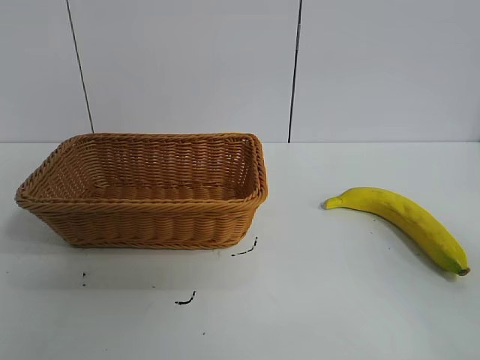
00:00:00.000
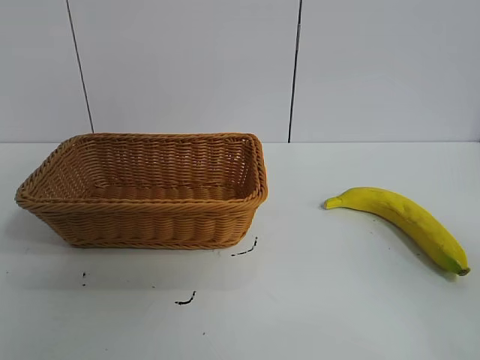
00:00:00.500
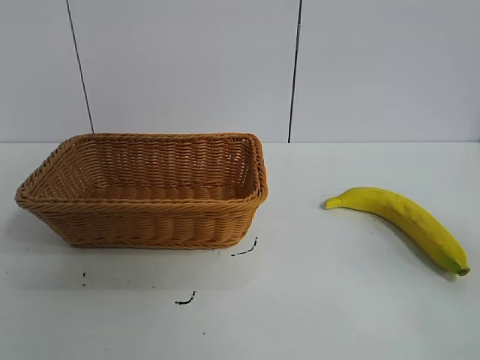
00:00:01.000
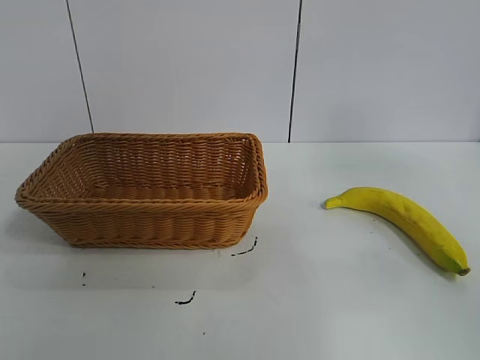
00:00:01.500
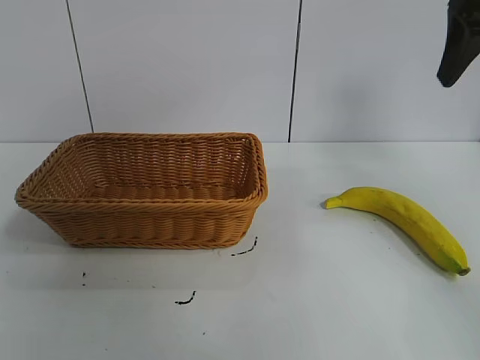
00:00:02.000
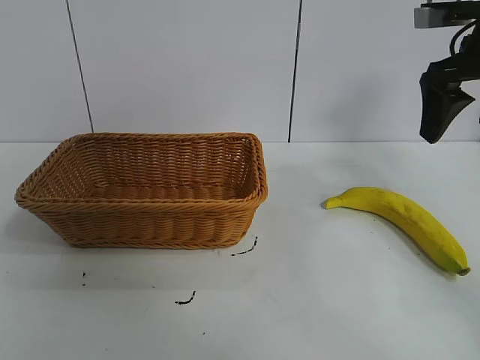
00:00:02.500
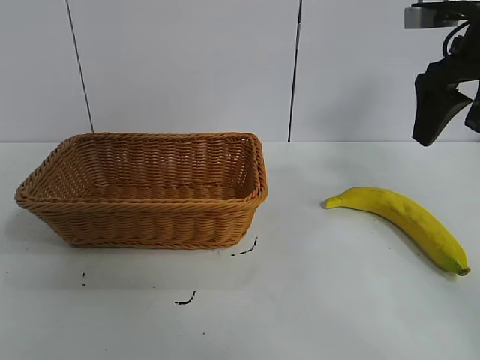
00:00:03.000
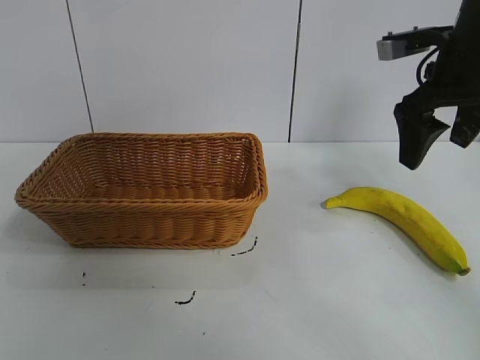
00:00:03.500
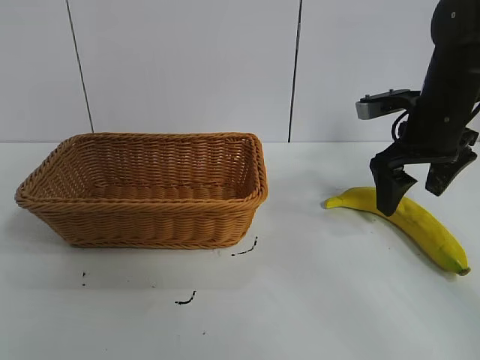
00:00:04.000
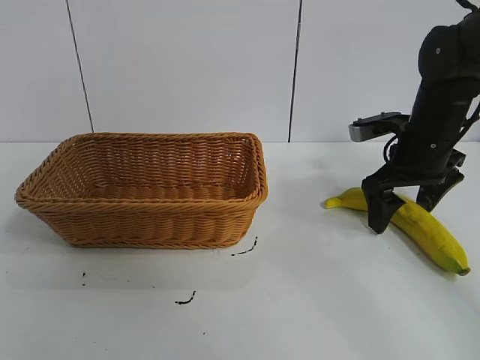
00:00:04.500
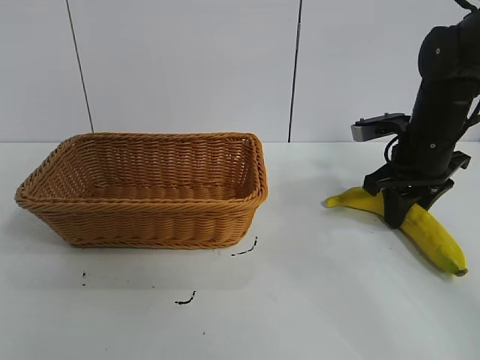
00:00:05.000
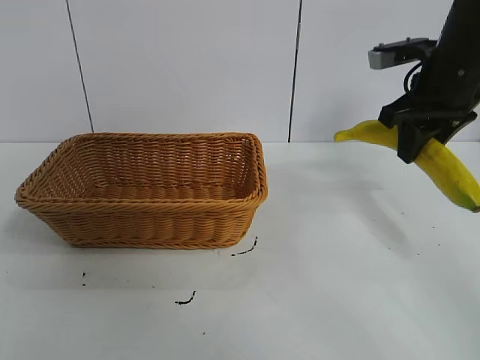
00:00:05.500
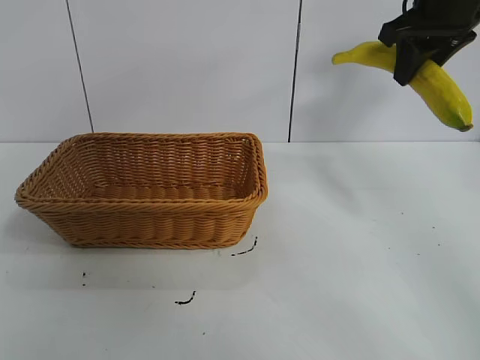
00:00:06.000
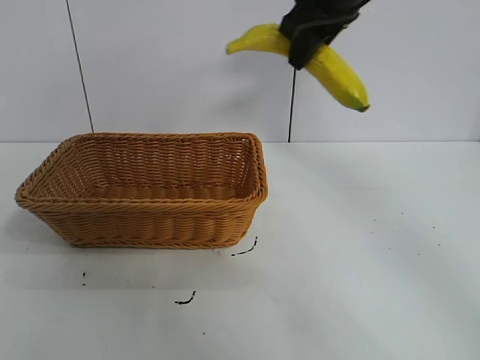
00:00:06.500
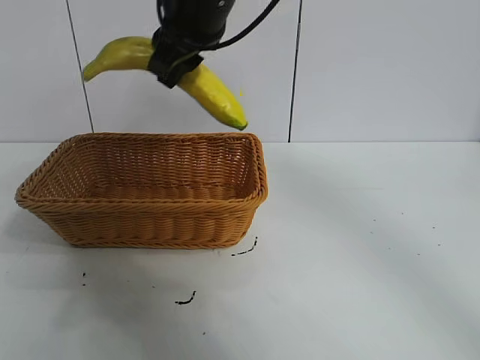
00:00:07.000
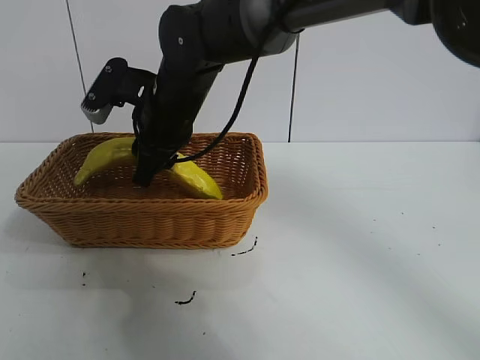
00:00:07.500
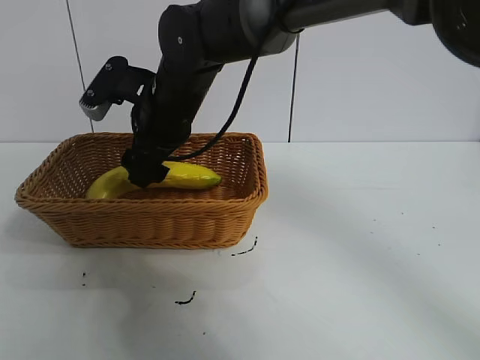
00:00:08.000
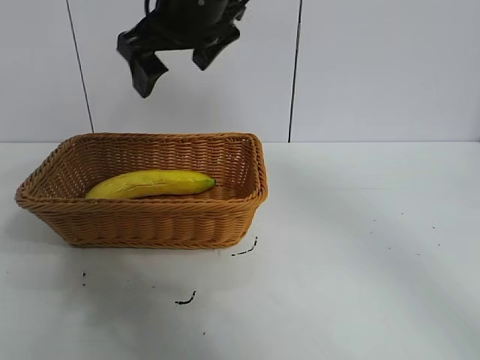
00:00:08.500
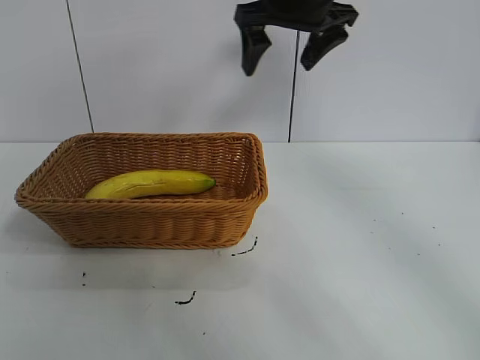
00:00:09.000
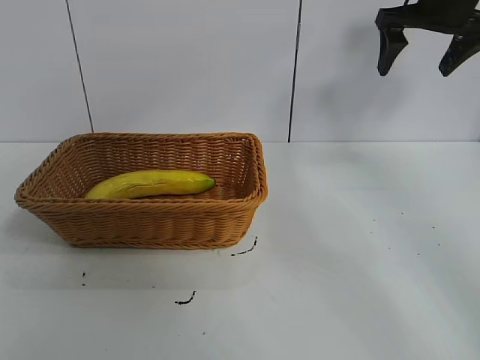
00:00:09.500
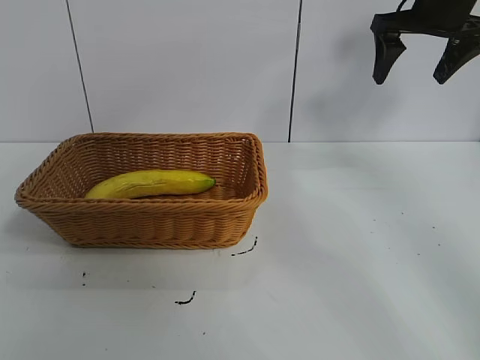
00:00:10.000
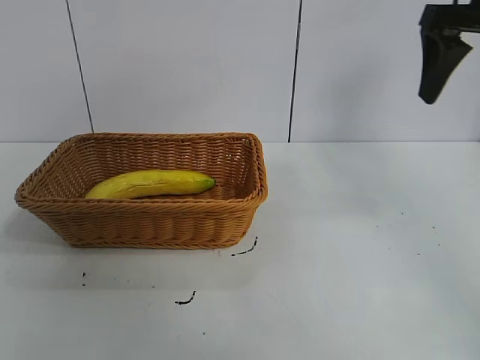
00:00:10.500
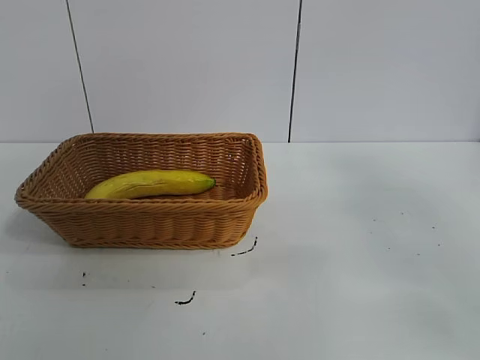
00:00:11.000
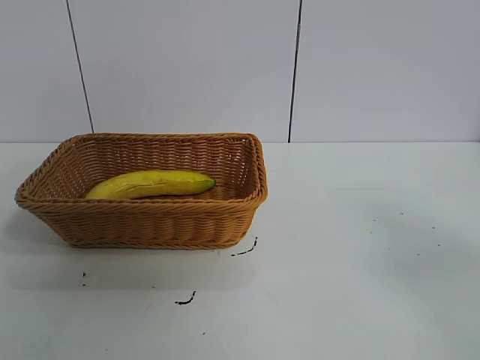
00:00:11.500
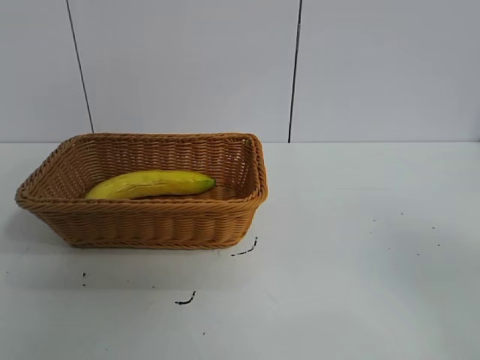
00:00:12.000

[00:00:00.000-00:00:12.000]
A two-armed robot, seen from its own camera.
Task of the whole recording: pick up the banana and put it into the basket.
Step, 00:00:01.000 to 00:00:04.500: Grasp the banana with right gripper.
Step, 00:00:05.500 to 00:00:08.000: Place the banana in the basket with right gripper.

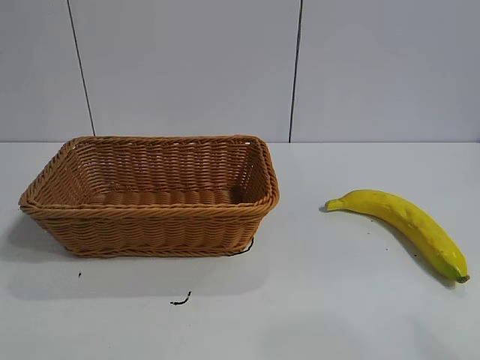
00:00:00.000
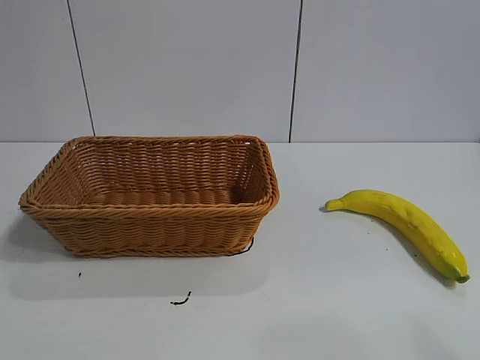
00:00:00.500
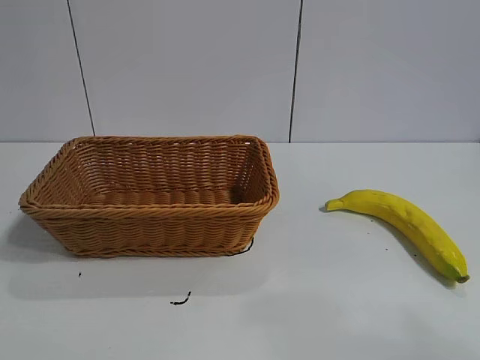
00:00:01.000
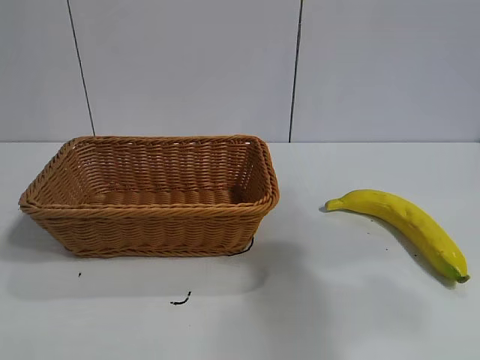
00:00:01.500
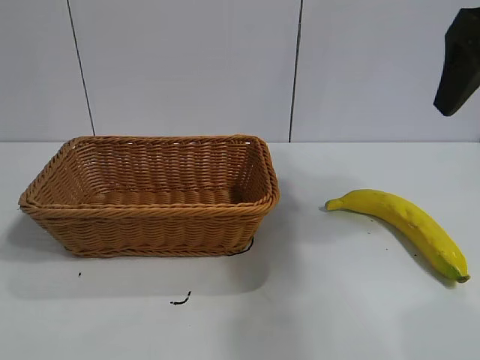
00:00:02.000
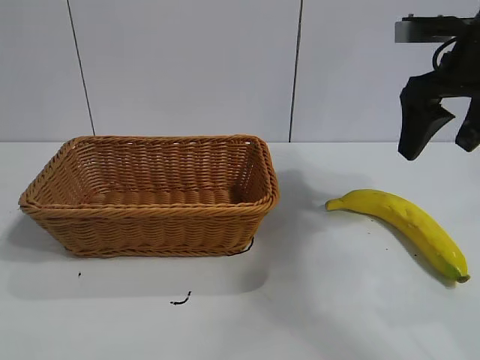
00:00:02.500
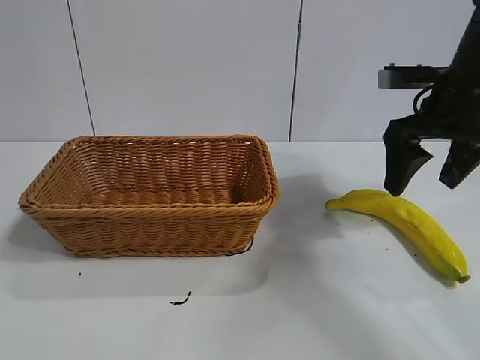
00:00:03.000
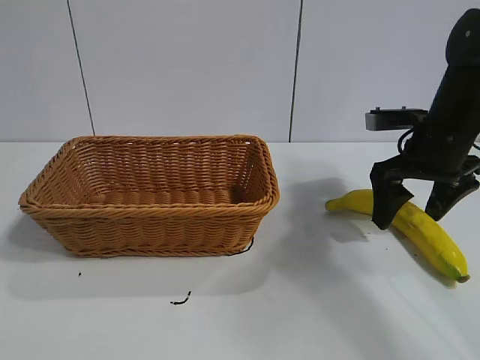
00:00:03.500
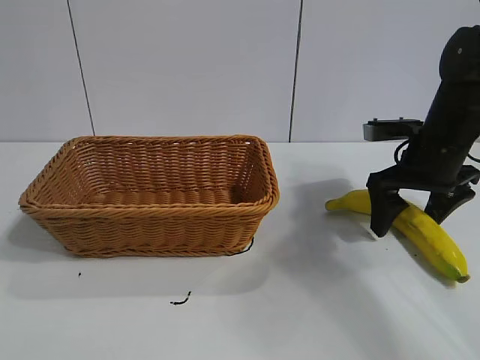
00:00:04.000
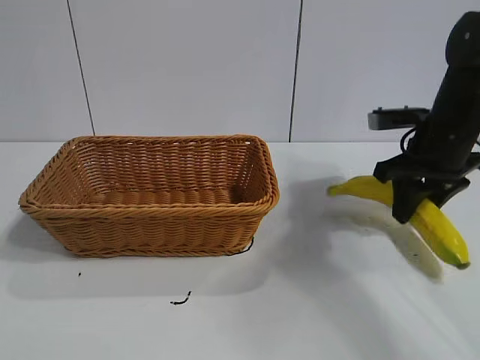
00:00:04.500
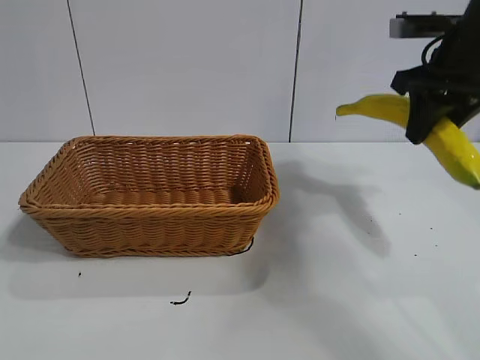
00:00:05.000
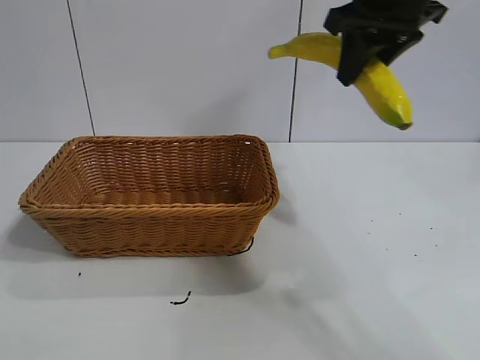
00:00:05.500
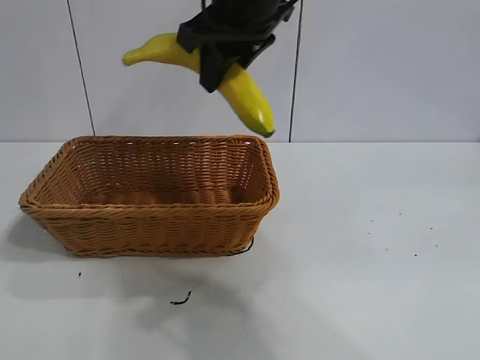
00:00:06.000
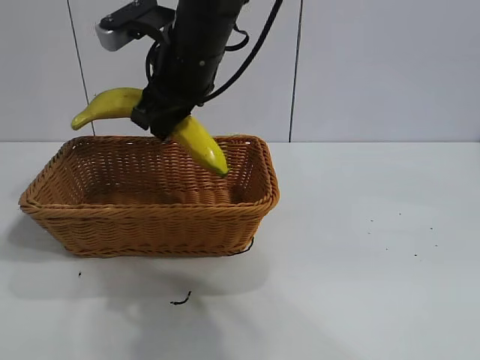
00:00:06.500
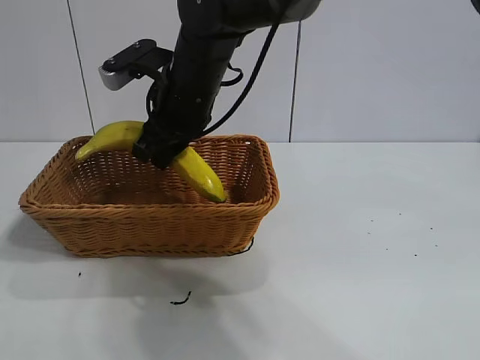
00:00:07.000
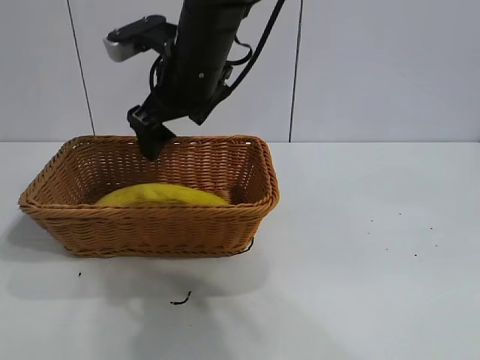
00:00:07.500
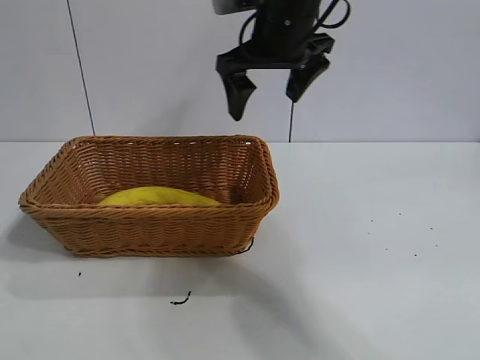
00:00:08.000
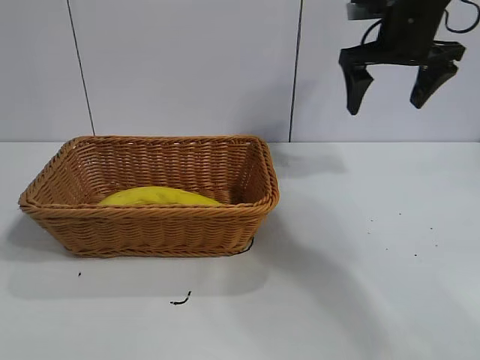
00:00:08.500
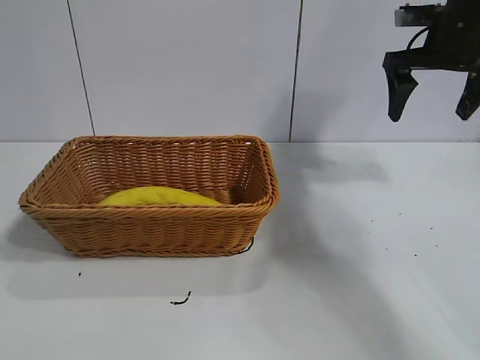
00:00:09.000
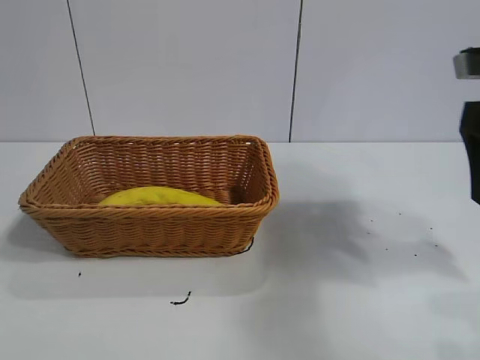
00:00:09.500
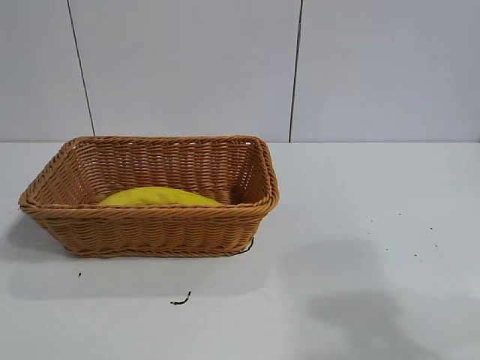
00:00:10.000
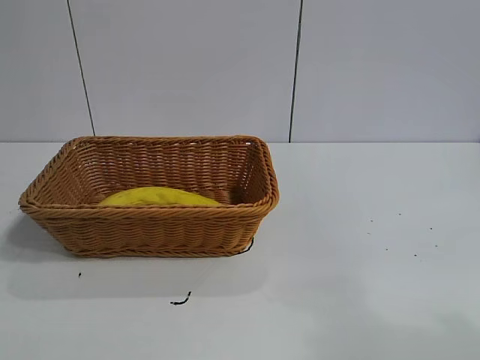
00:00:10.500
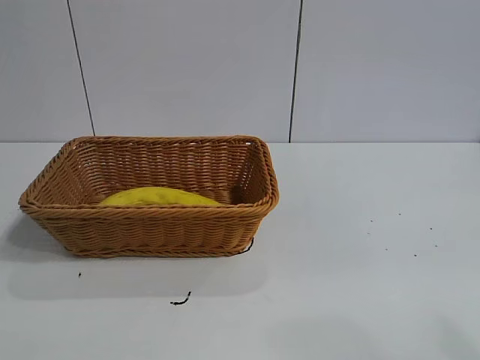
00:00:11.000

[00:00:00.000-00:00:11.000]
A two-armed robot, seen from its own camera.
Task of the whole recording: pick up the banana and put it into the basket.
Step, 00:00:02.000 to 00:00:04.500: Grasp the banana with right gripper.
Step, 00:00:05.000 to 00:00:07.000: Place the banana in the basket with right gripper.
